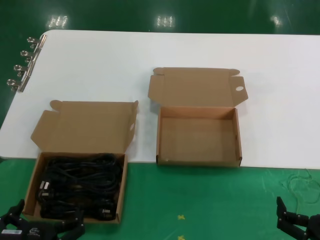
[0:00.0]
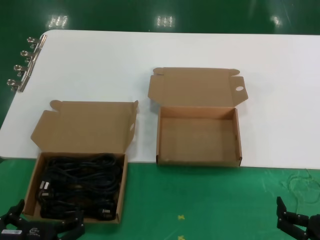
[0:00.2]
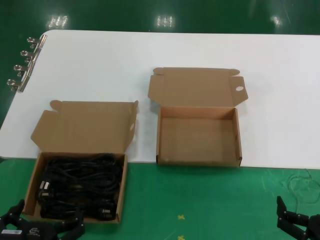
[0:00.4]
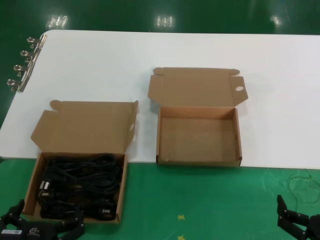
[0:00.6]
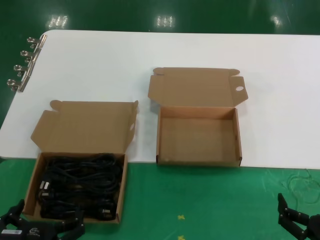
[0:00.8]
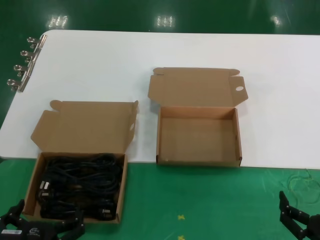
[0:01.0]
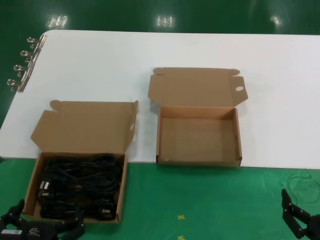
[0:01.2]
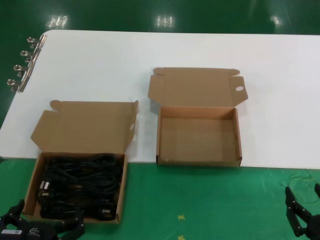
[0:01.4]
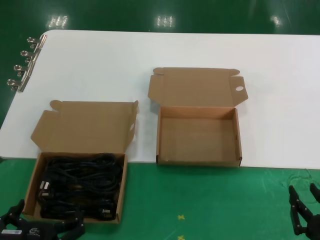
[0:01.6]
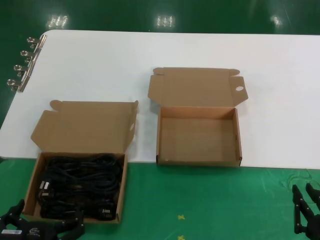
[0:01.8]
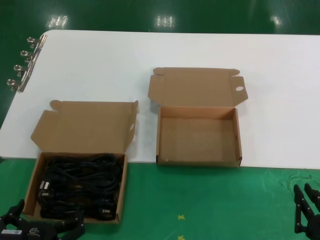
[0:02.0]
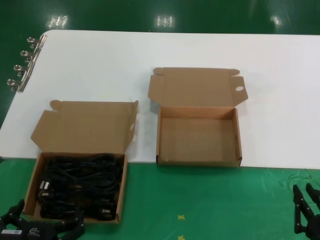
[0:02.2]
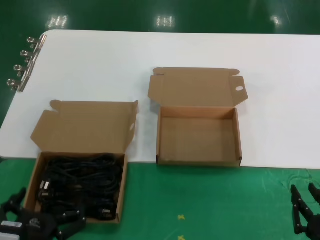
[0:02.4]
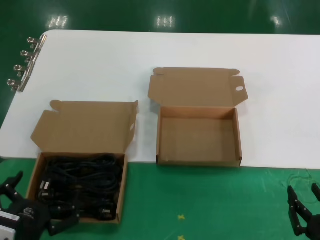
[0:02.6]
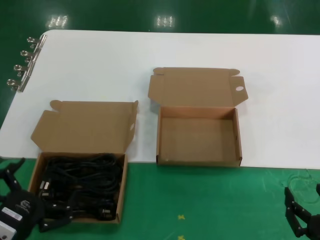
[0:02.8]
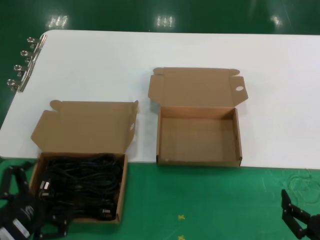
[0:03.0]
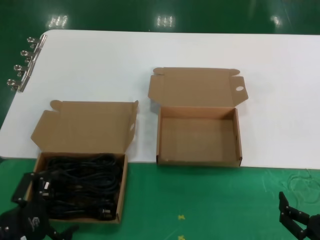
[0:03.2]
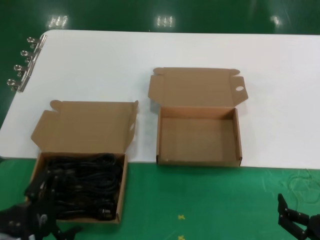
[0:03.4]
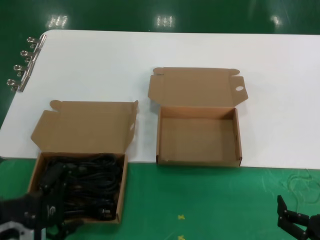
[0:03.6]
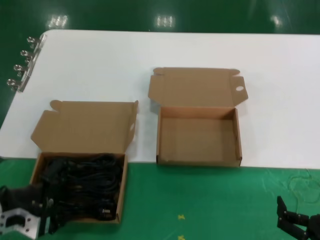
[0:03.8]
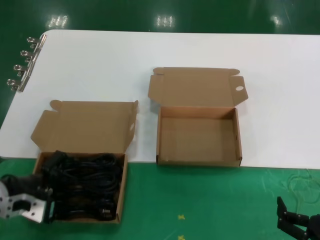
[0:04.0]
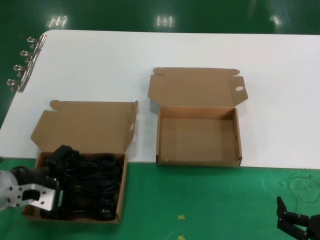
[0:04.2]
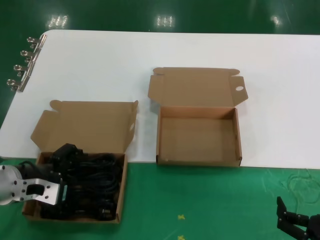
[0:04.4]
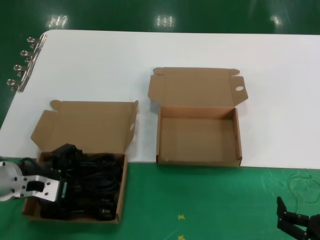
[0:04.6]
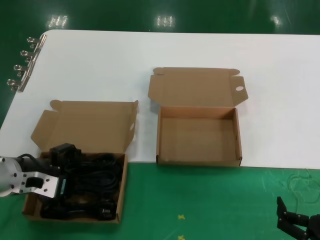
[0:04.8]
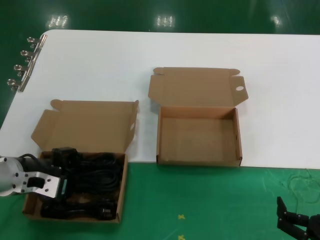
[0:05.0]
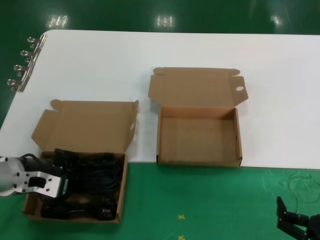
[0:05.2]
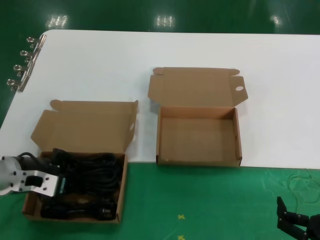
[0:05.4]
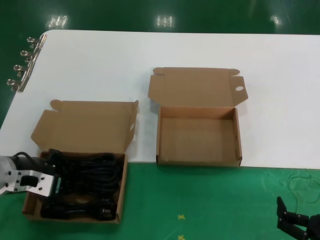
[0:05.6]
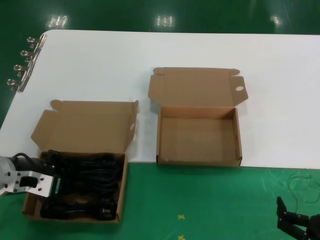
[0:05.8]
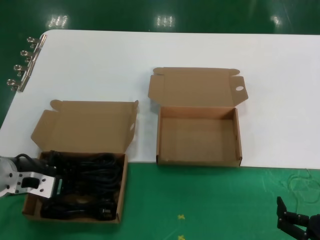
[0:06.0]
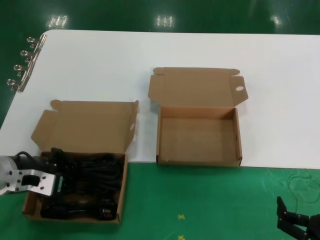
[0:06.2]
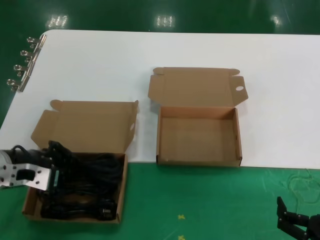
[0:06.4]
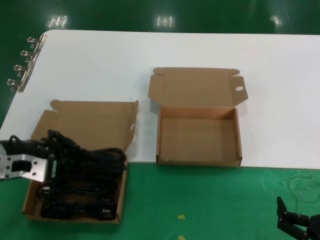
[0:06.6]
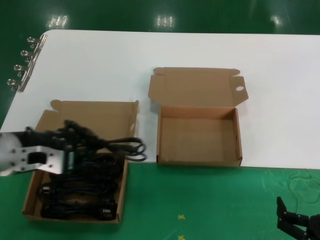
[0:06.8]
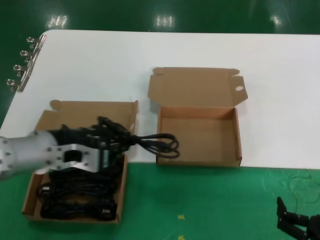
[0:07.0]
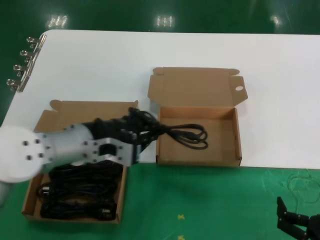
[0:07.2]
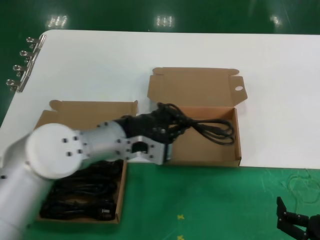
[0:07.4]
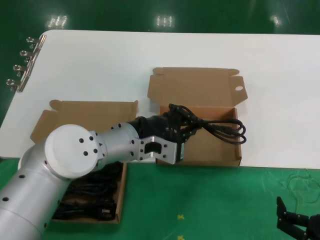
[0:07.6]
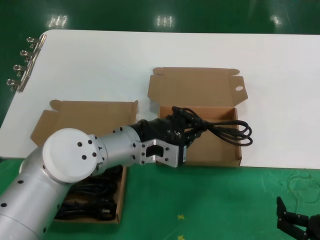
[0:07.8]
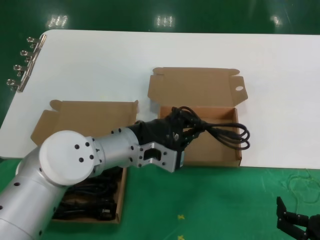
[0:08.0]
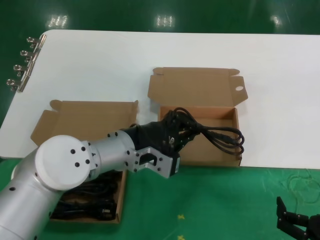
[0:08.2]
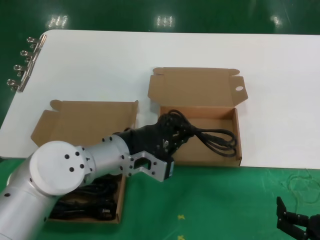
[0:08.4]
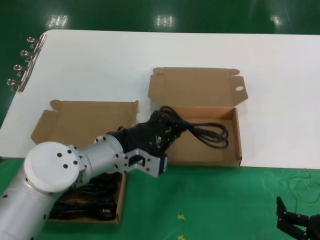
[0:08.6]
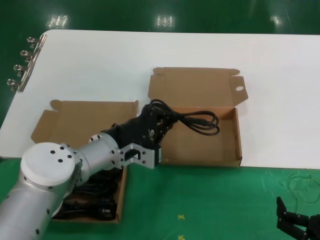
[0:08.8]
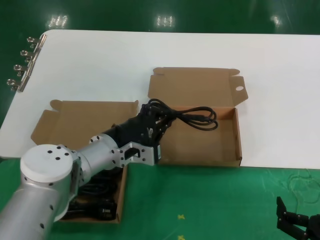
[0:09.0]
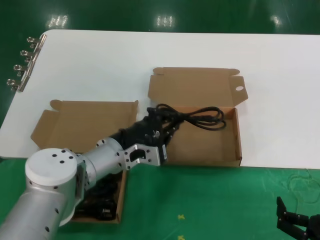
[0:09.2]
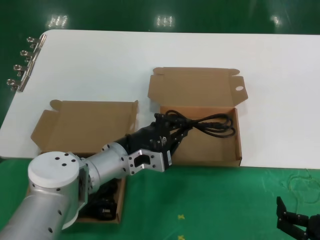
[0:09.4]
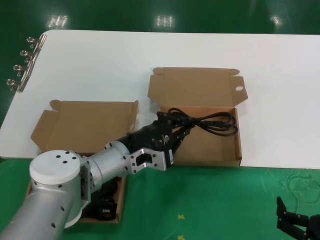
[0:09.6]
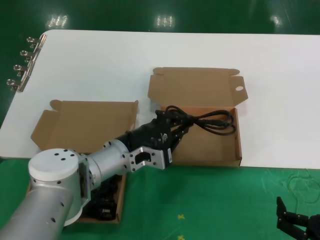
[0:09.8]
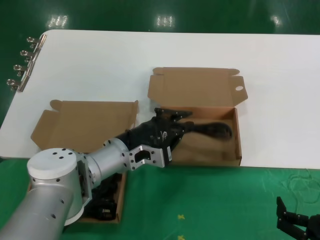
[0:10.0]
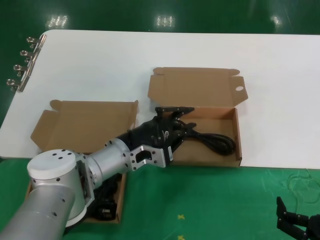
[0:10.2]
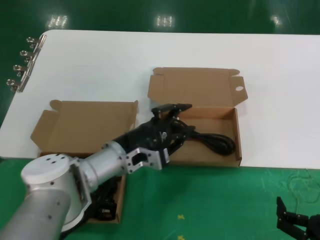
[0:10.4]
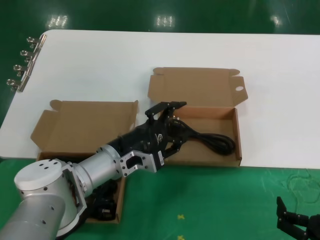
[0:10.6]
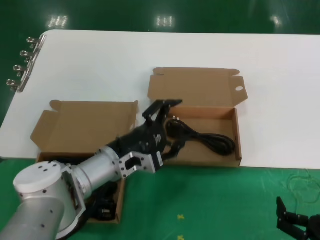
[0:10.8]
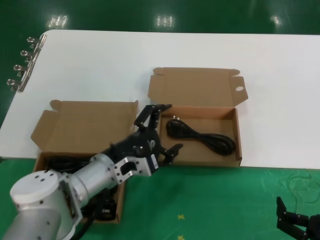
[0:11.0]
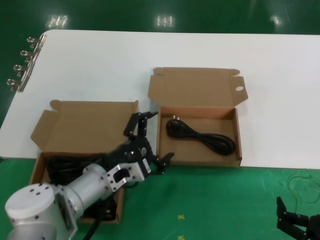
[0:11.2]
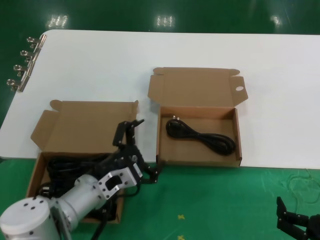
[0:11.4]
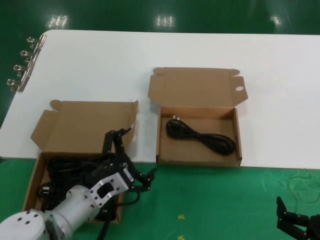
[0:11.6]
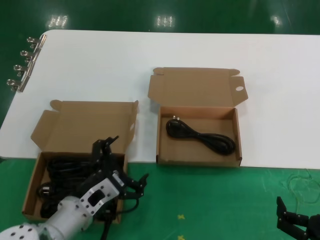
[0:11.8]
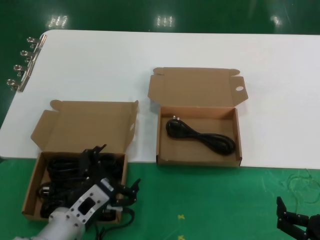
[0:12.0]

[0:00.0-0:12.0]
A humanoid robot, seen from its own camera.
Task of the whole recording: take the parts from the box containing them and put them into an empty box.
Step, 0:00.0 to 0:05.4: Grasp the data cable.
Step, 0:05.6 to 0:10.4: Place the data cable in the another box.
0:00.0 to 0:01.6: Neither hand changes place.
0:01.6 to 0:03.0: The left hand is displaced to the left and upward by approximately 10 cm.
0:03.0 to 0:04.4: The left hand moves forward and upward, some 20 cm.
0:04.4 to 0:06.0: The hands move only a little.
0:06.0 to 0:07.6: The left hand goes about 20 cm to the right.
0:07.6 to 0:09.0: The left hand moves about 5 cm.
0:09.0 to 0:10.4: There are only small adjustments of the hands.
0:10.4 to 0:12.0: The left hand shifts approximately 15 cm downward, backward and to the left.

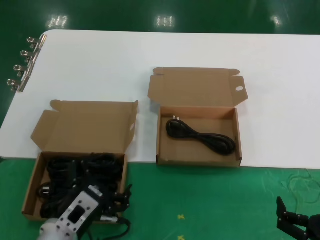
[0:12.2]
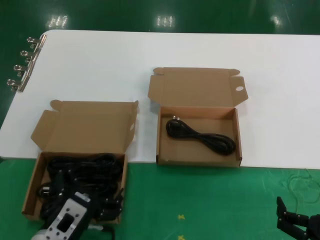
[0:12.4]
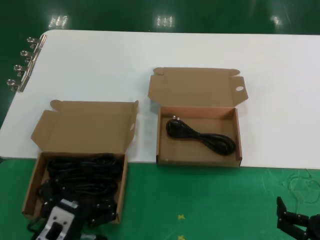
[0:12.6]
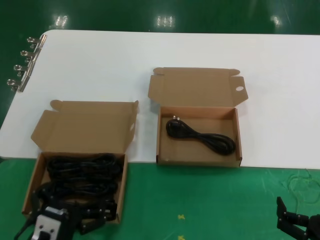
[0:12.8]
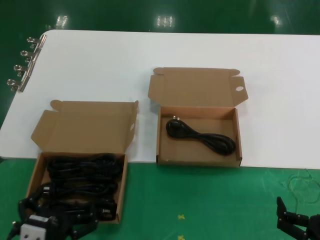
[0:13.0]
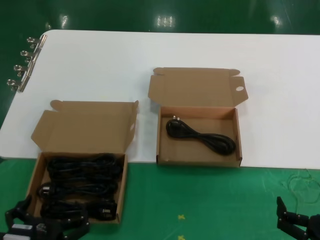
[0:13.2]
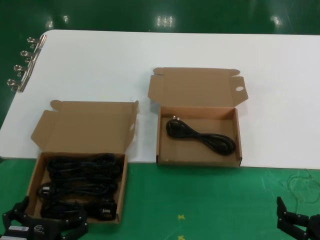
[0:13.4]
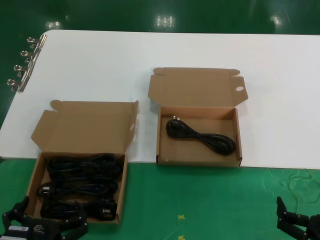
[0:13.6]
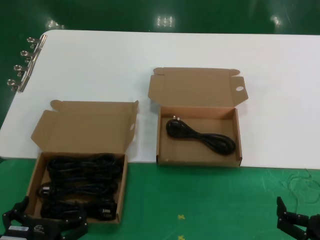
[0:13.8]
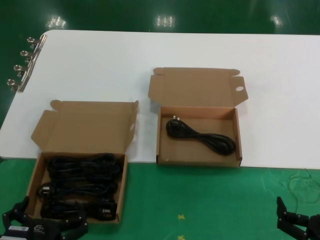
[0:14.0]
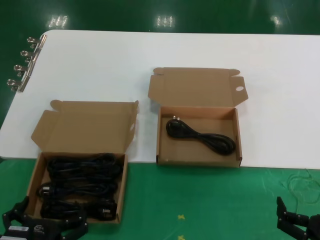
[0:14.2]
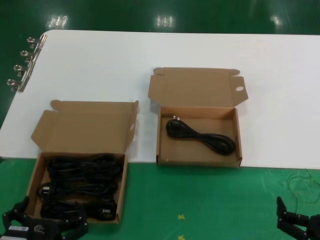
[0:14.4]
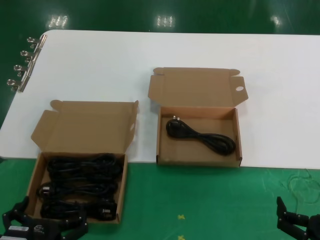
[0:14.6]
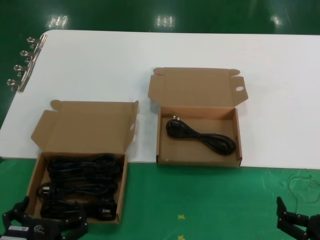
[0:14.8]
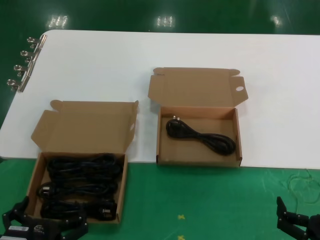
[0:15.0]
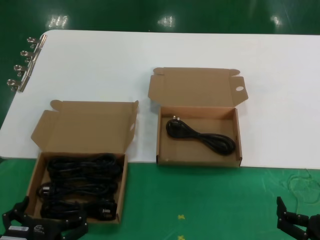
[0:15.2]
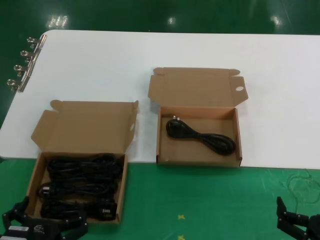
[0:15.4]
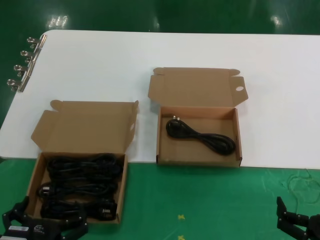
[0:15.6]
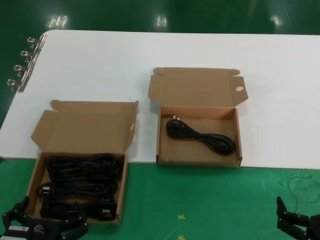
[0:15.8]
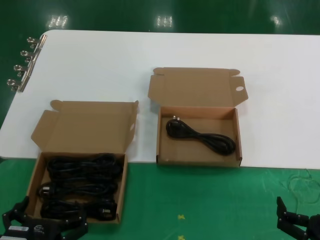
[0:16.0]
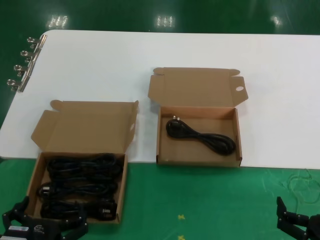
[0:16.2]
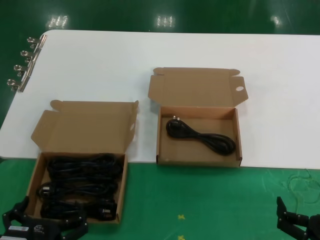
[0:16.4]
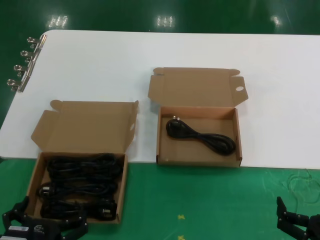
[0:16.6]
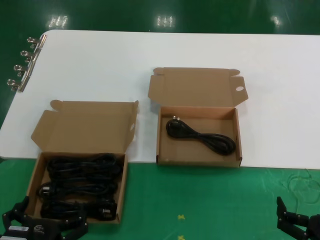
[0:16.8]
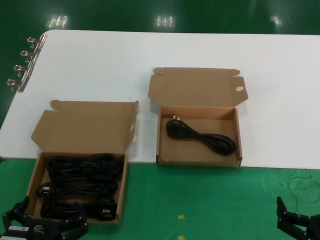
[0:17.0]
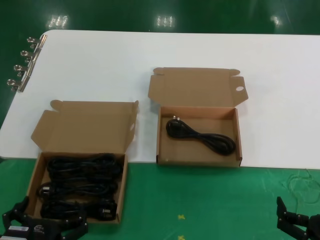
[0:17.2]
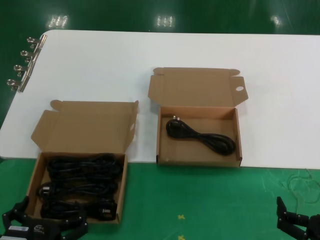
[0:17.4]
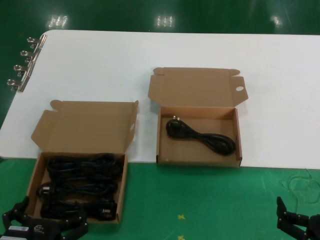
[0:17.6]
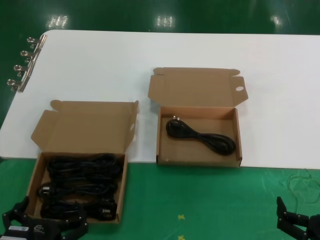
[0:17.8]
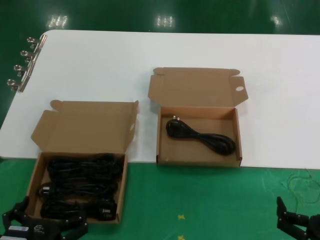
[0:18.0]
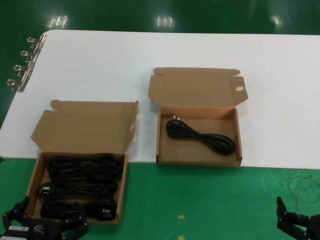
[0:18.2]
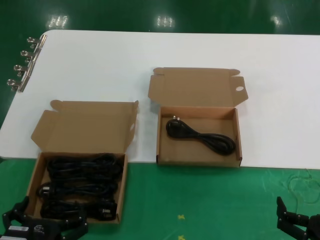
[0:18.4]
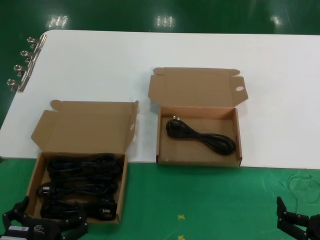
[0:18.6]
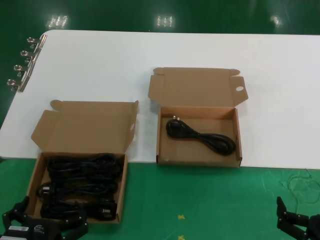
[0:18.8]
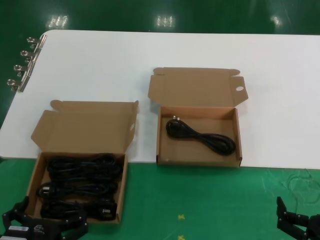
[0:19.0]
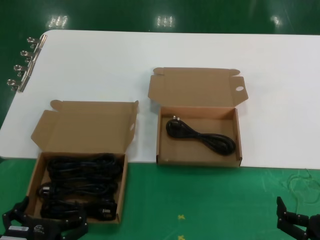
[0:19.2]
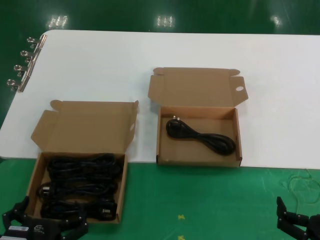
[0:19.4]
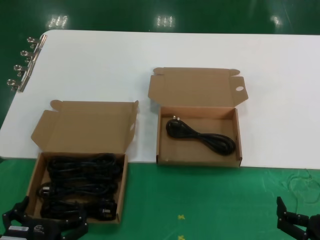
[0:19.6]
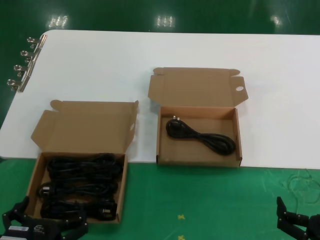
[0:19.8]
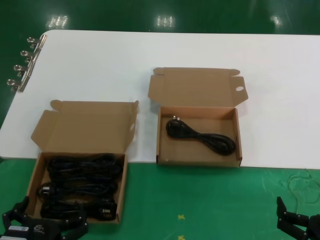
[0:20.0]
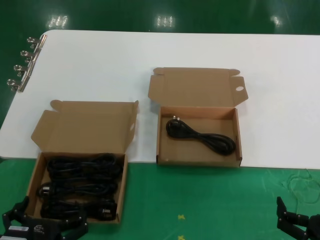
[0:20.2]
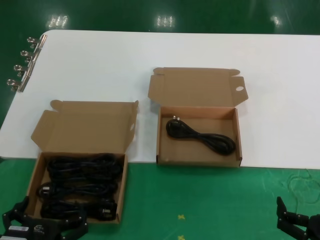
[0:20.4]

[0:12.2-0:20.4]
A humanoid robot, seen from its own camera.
Task of the whole recording: take the parts from the box containing them and put them into an empty box.
0:12.2 to 0:13.8: The left hand heads backward, covering approximately 10 cm.
0:13.8 to 0:20.4: The two hands keep their place.

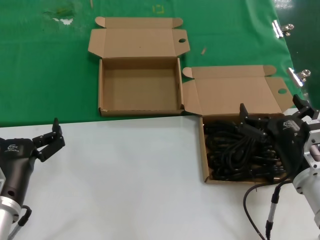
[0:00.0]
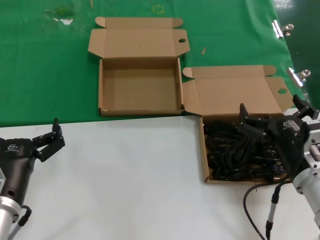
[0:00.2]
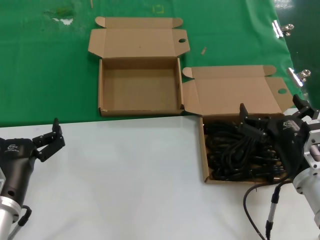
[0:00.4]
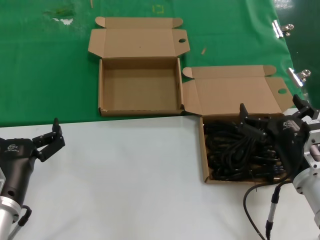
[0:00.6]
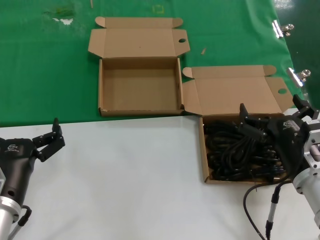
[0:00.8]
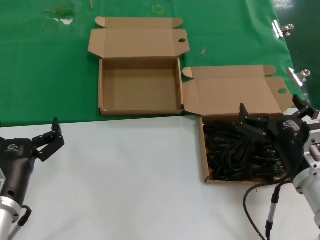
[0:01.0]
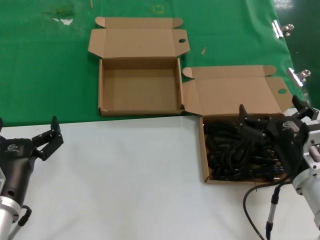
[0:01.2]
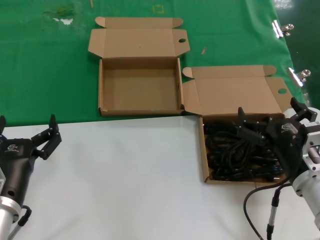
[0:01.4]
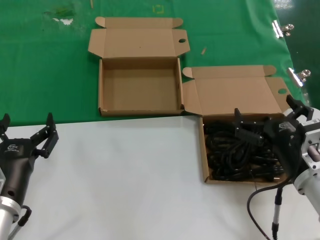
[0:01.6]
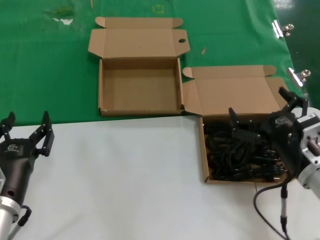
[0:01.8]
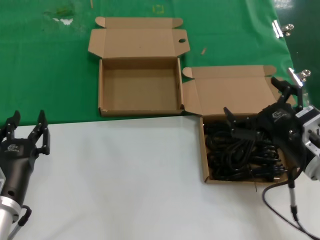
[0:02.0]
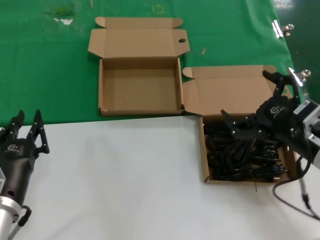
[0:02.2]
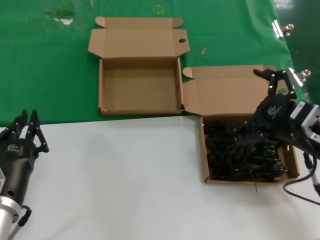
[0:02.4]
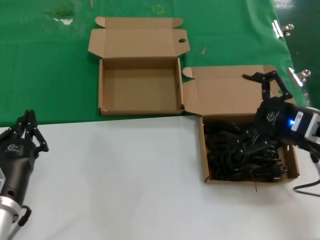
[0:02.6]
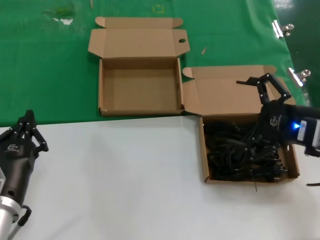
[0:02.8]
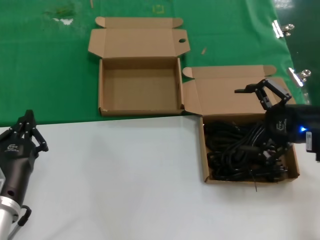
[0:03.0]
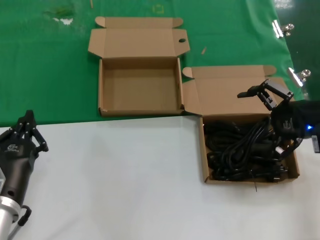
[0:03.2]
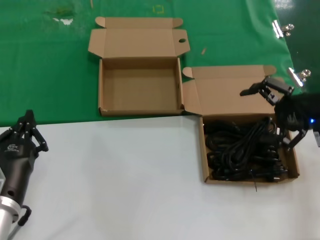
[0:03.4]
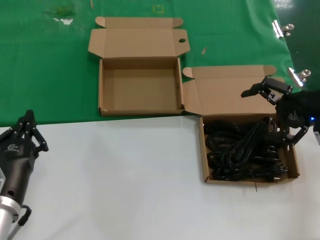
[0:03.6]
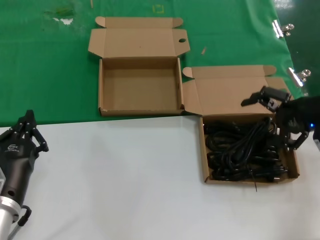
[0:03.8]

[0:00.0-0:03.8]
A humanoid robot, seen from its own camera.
Task of the whole recording: take the parts from the box containing them and put them into an empty box.
0:00.0 to 0:01.2: Both hands stay about where they are.
0:01.2 to 0:02.6: The right hand travels upward and to the right by about 10 cm.
0:02.6 to 0:03.8: The right hand is displaced forward and to the right by some 10 cm.
